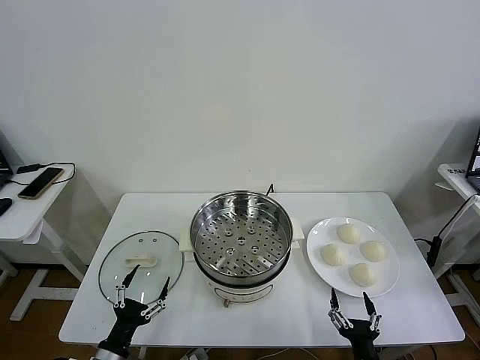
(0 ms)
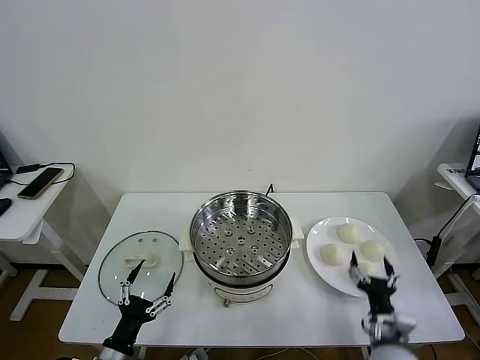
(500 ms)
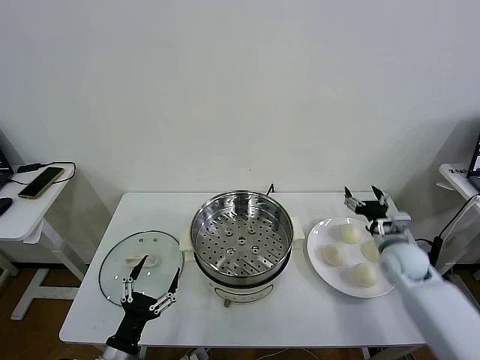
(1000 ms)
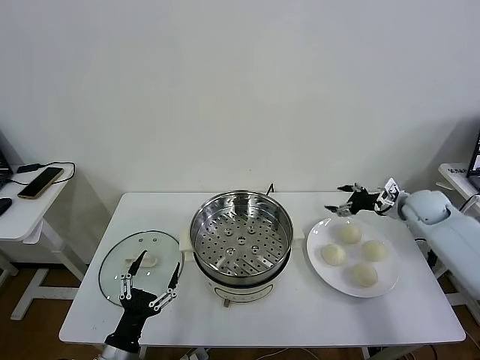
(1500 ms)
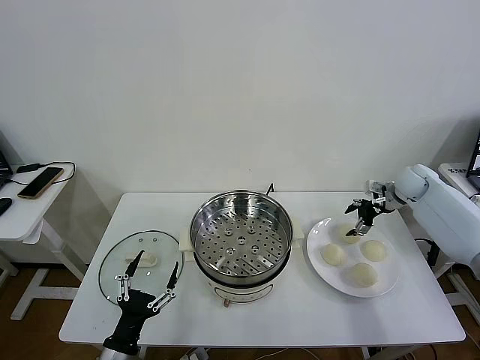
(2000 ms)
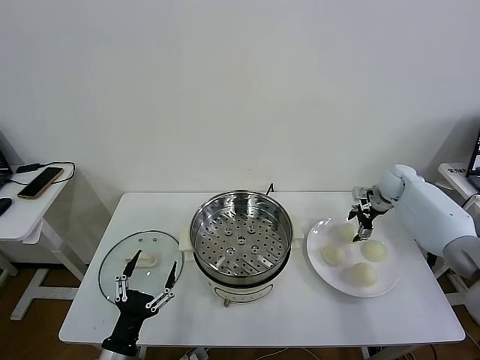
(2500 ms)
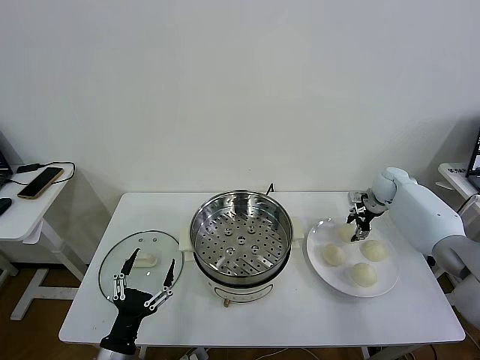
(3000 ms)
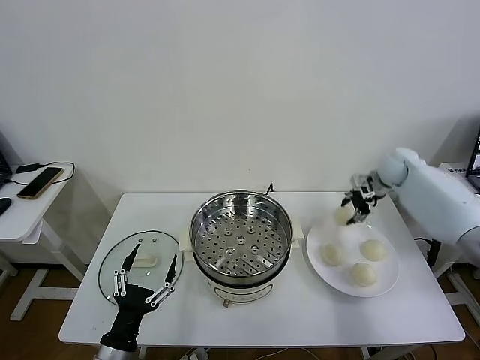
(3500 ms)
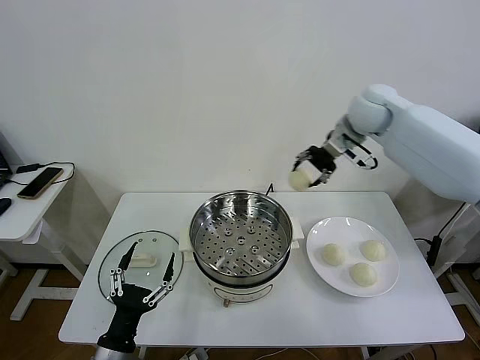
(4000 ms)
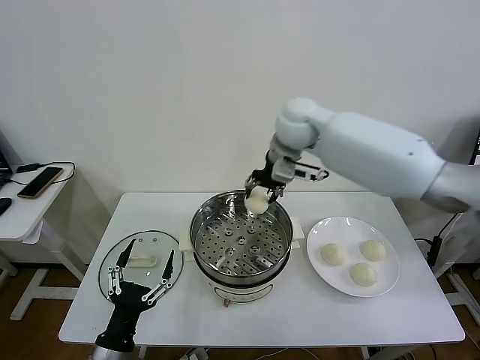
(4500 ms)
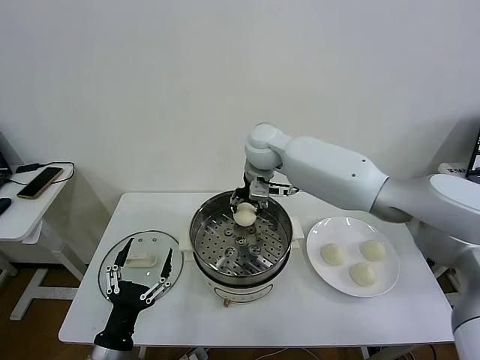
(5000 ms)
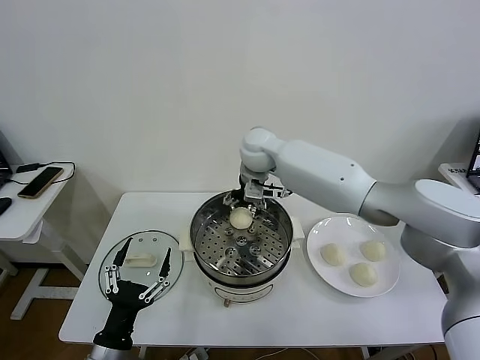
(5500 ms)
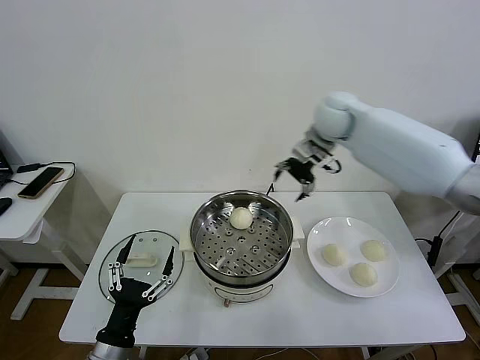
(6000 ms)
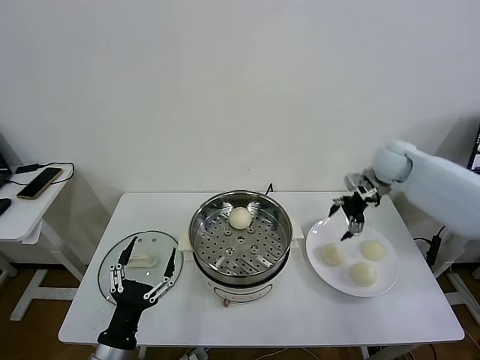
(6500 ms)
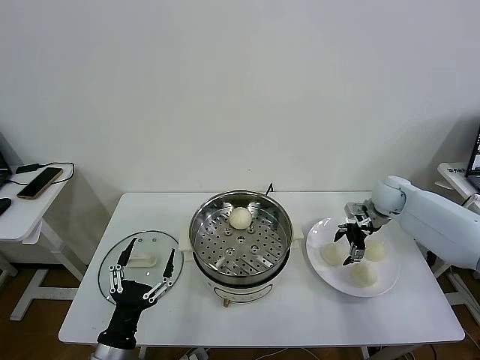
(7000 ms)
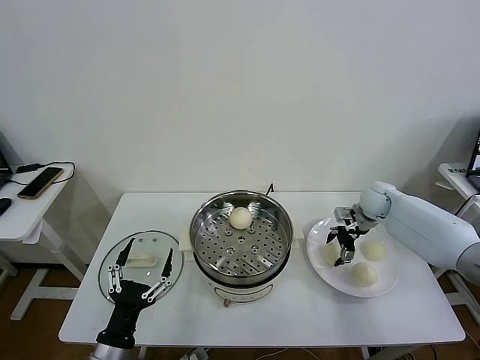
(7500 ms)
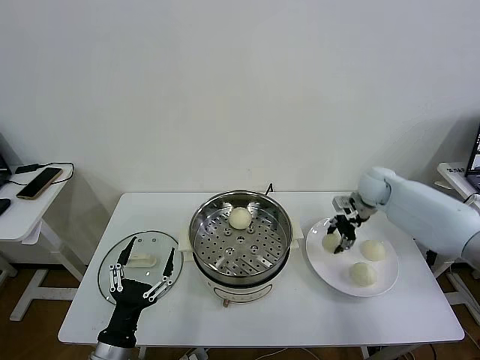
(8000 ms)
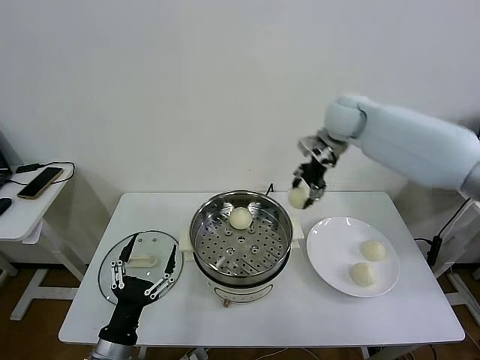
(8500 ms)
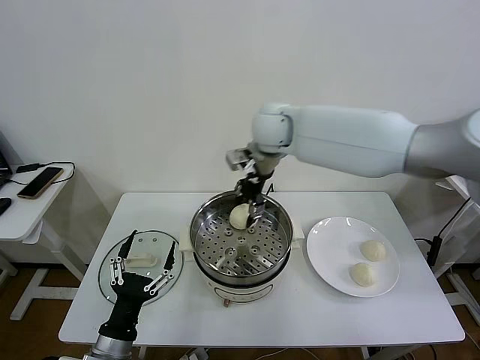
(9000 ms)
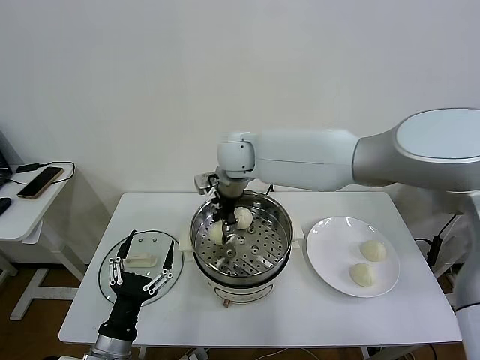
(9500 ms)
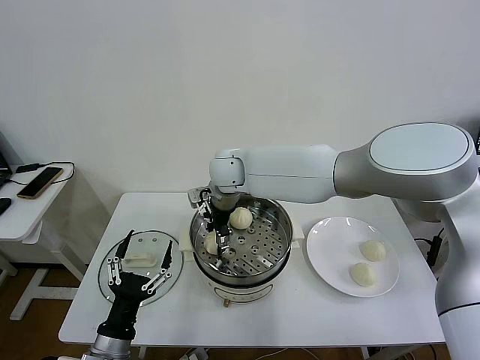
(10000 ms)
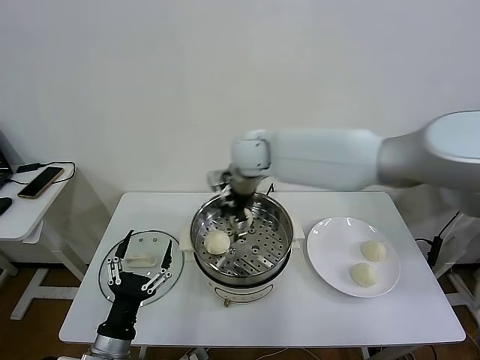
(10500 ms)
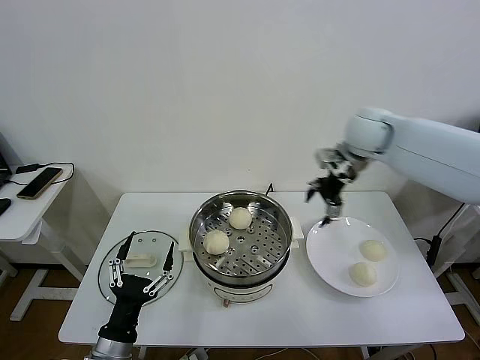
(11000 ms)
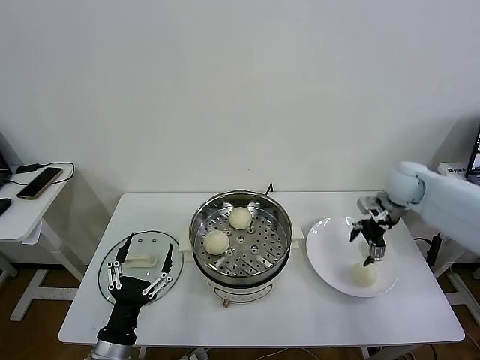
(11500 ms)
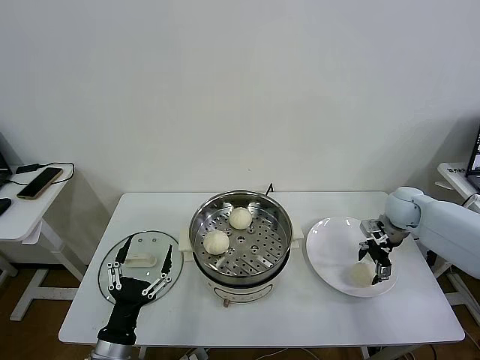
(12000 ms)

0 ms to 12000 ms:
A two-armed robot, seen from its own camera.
Task of the whole recording: take steamed baozi put them in steamer then cover it.
Step, 0 ms to 3000 ms: Grasp the baozi in the plate with right gripper.
Step, 3500 ms to 5000 ms: Place the baozi on the steamer with right gripper.
Step, 5500 ms to 7500 ms: Grasp the baozi in the plate with right gripper.
Step, 8000 ms to 10000 ms: Place the baozi on the steamer with right gripper.
2000 ms to 4000 ms: The right gripper shifts some 30 cm to the left and upward, and closes up.
4000 ms to 6000 ms: The right gripper reaches roughly 20 cm to the left, then returns, and opens up.
6000 ms to 8000 ms: The right gripper goes some 20 cm downward and to the right, and closes its fingers.
8000 ms to 10000 ms: The right gripper moves to the left, some 35 cm, and opens its fingers.
10000 ms to 12000 ms: The right gripper heads to the right, covering some 40 cm.

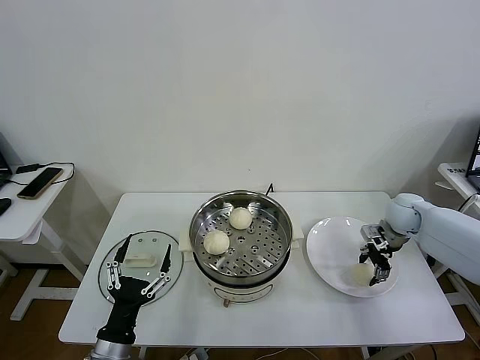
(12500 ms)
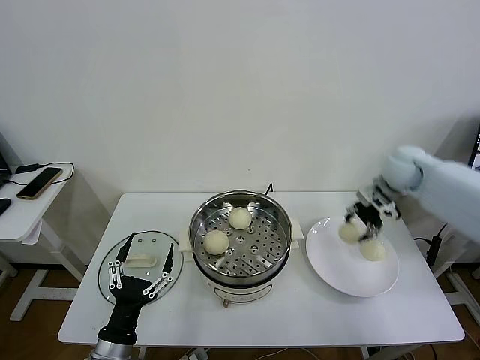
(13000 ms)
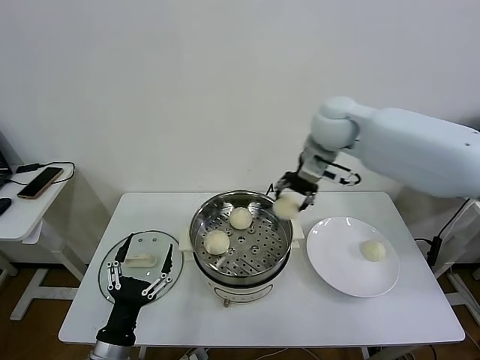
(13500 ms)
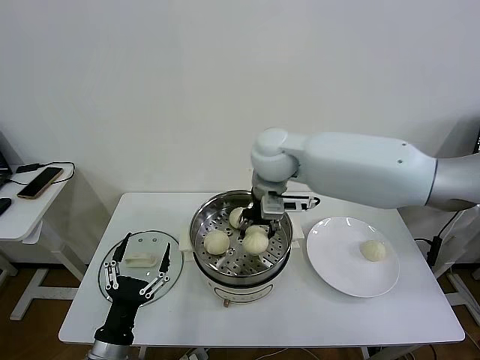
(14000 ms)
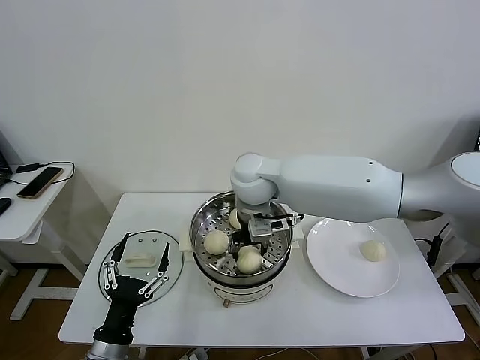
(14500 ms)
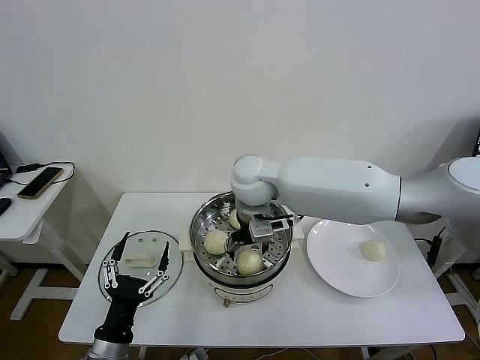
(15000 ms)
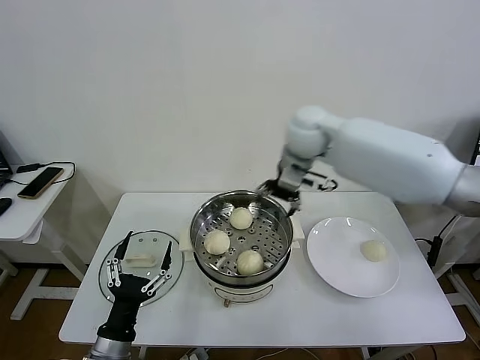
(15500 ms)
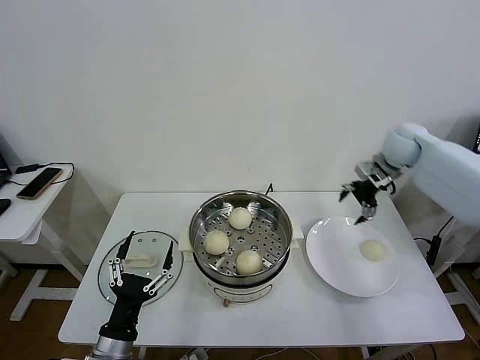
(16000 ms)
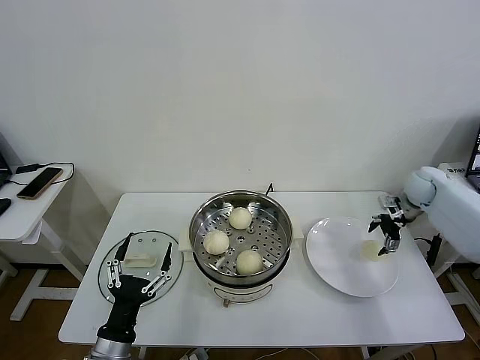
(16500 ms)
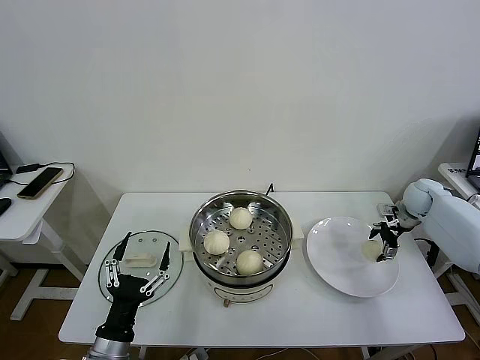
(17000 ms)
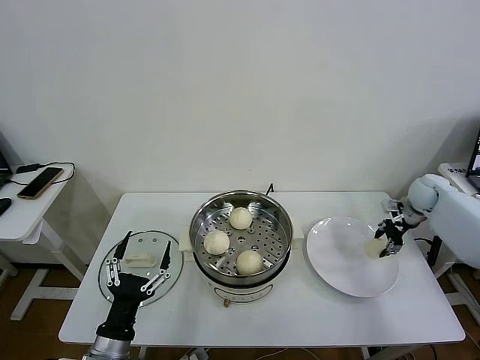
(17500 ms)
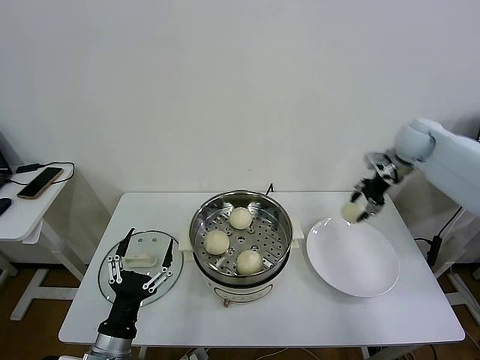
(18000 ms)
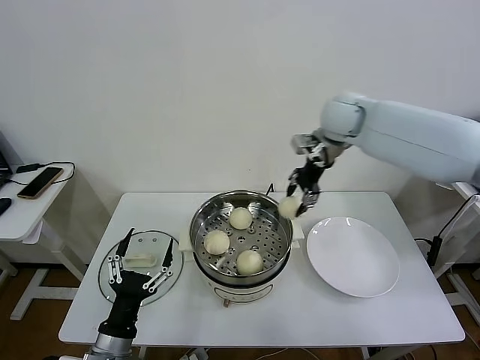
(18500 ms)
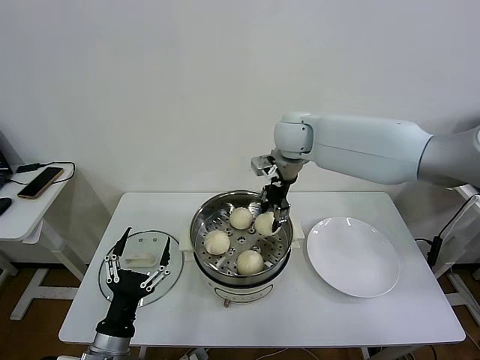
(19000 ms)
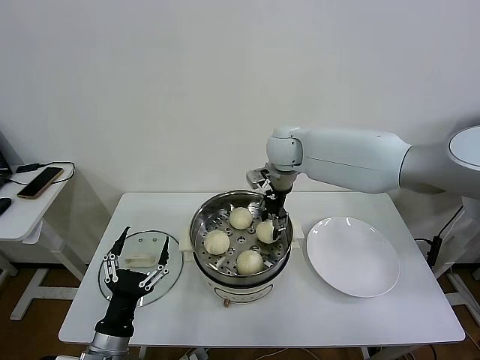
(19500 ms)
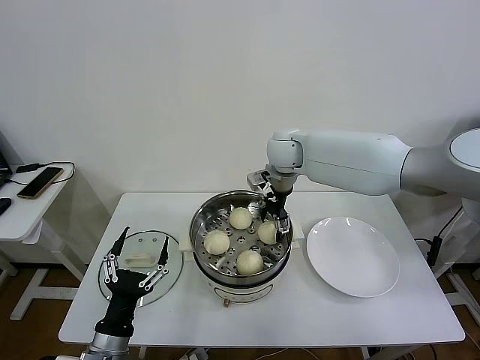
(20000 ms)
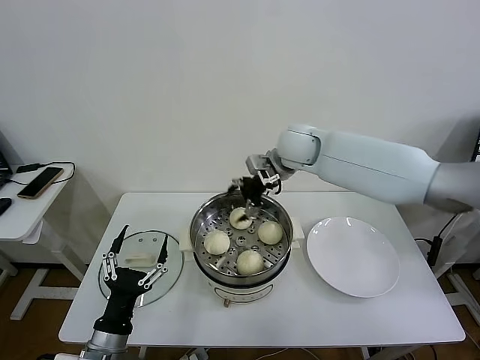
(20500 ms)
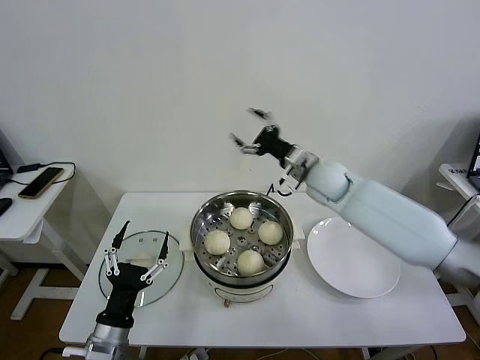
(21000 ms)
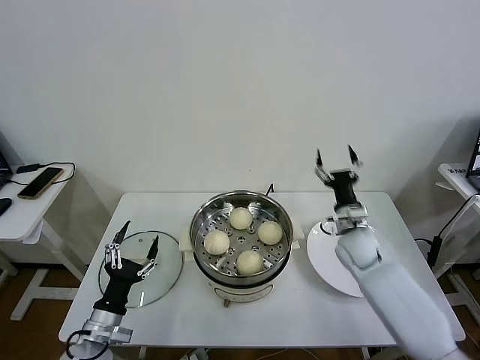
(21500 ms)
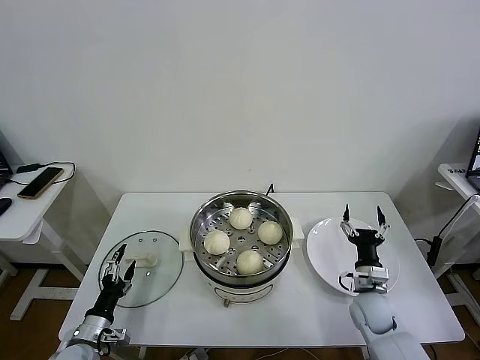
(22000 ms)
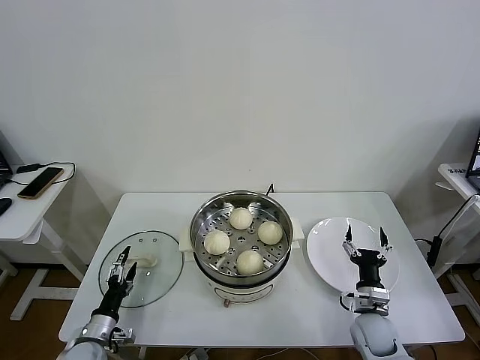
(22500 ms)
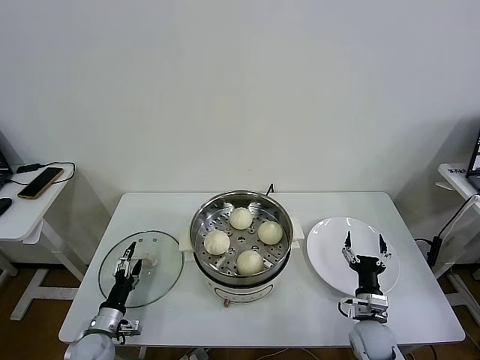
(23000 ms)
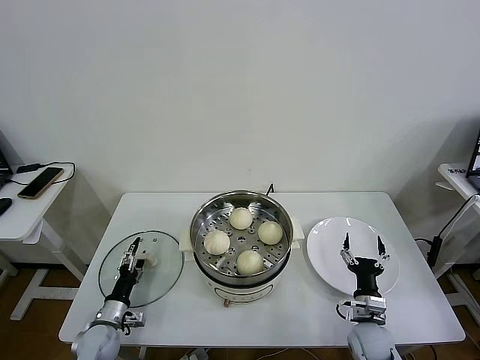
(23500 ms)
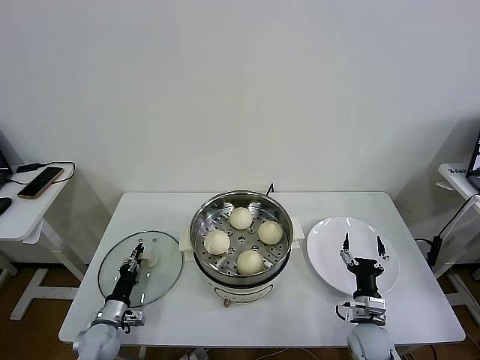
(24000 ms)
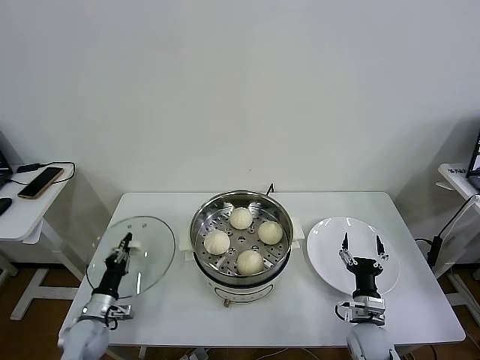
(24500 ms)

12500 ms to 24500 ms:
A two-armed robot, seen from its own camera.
Task of the whole recording: take steamed baozi put them in steamer then cover it.
Step, 13000 ms to 14500 ms: Place the baozi on the steamer with right gripper.
Step, 15000 ms to 17000 ms: Grasp the baozi in the plate with right gripper.
Step, 18000 ms to 20000 ms: Place the baozi on the steamer with right gripper.
Step, 20500 ms to 24000 ms: Grasp the pot lid with left gripper.
12500 ms to 14500 ms: The right gripper heads to the left, covering roughly 40 cm.
14500 ms to 16500 ms: The right gripper heads to the right, covering approximately 50 cm, and opens its fingers.
16500 ms to 18500 ms: The right gripper heads to the left and upward, covering roughly 35 cm, and closes its fingers.
18500 ms to 20500 ms: The right gripper shifts about 10 cm to the left and downward, and opens its fingers.
20500 ms to 22500 ms: The right gripper goes about 50 cm downward, backward and to the right, while the left gripper shifts some 20 cm downward, to the left and forward.
22500 ms to 24500 ms: The left gripper moves forward, about 5 cm, and closes its fingers.

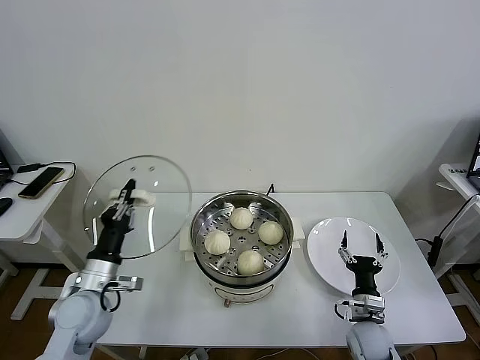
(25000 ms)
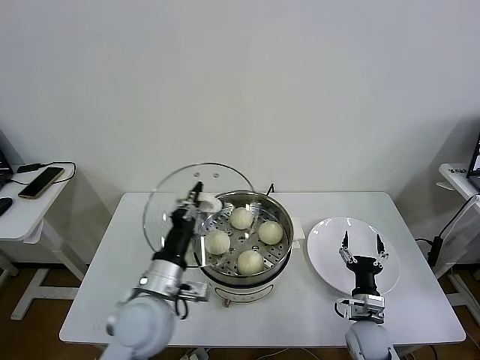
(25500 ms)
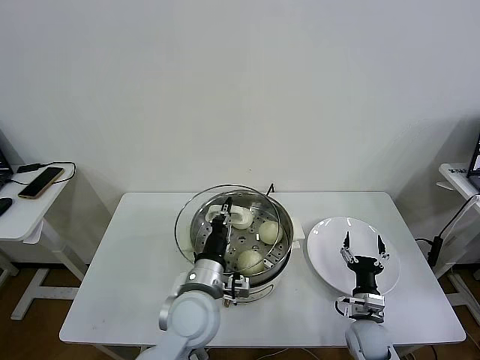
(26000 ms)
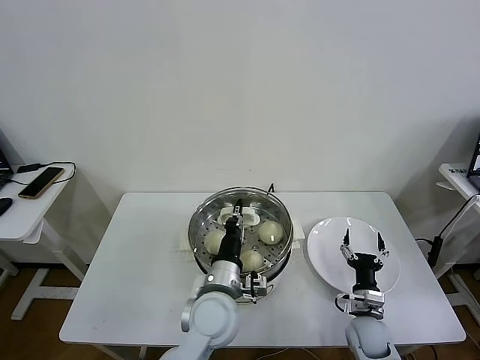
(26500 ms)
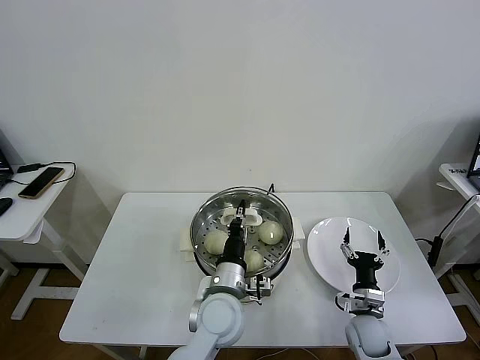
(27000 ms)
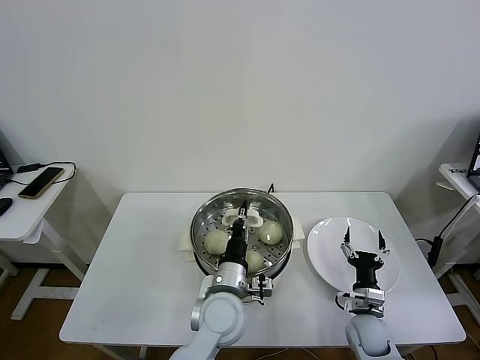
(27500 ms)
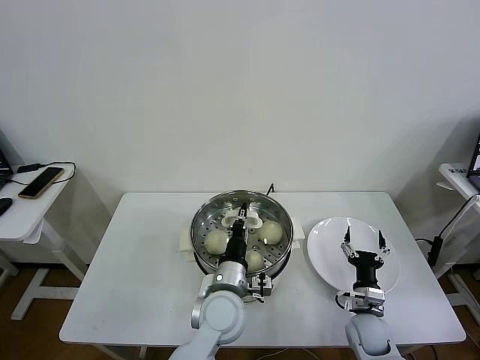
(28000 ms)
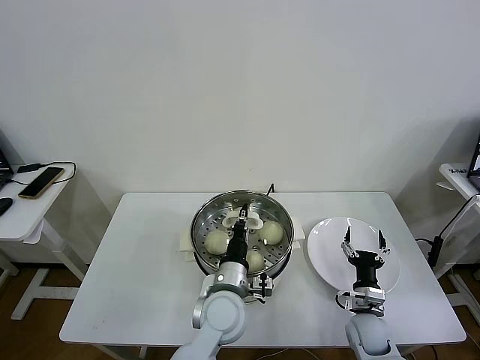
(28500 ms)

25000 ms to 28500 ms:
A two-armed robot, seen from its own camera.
Task of the whole recording: take steamed baozi put them in steamer then cover it.
25000 ms to 27000 ms: The left gripper shifts some 30 cm to the right.
27000 ms to 28500 ms: The two grippers keep their place.
